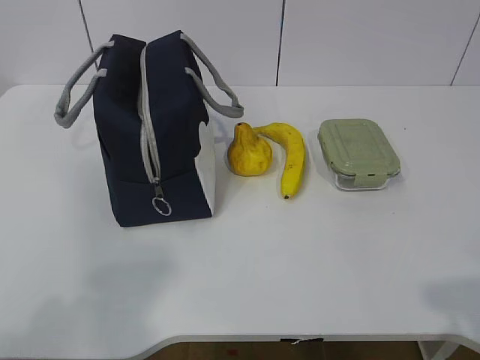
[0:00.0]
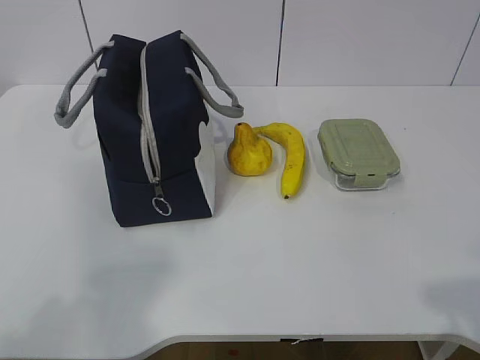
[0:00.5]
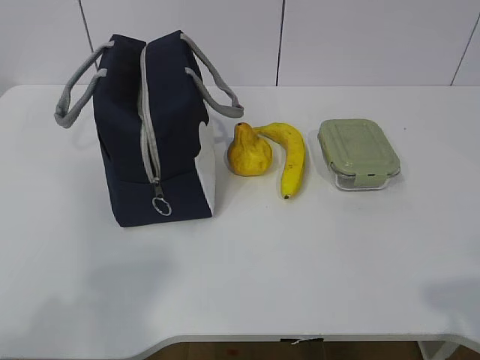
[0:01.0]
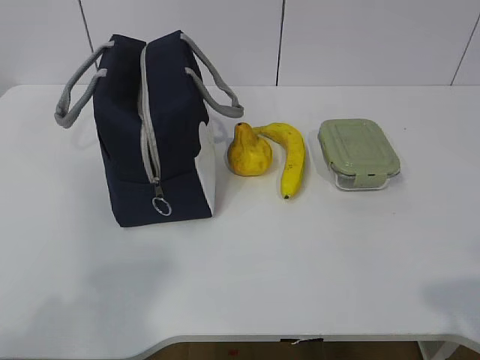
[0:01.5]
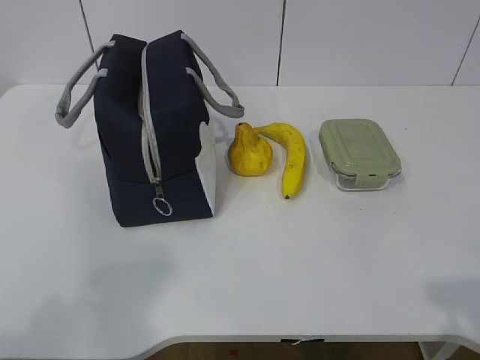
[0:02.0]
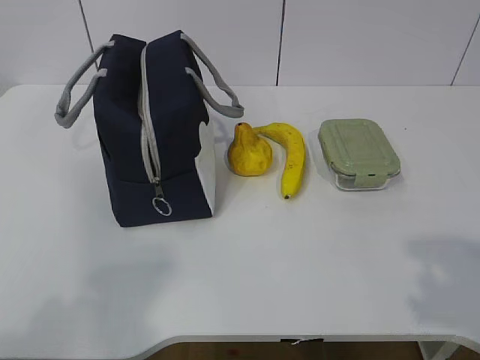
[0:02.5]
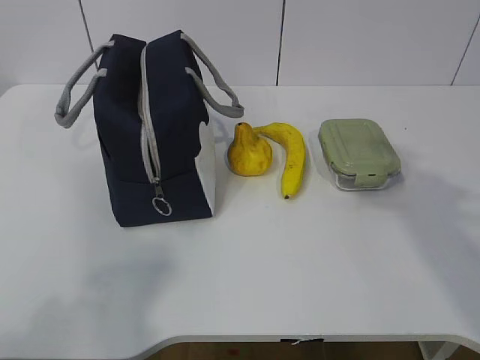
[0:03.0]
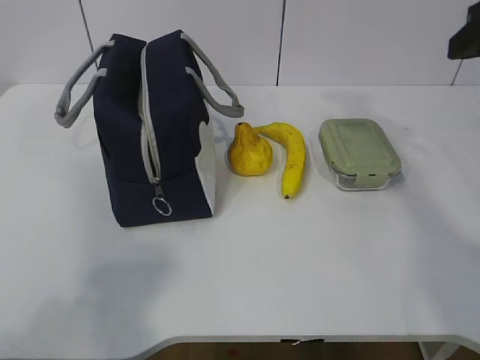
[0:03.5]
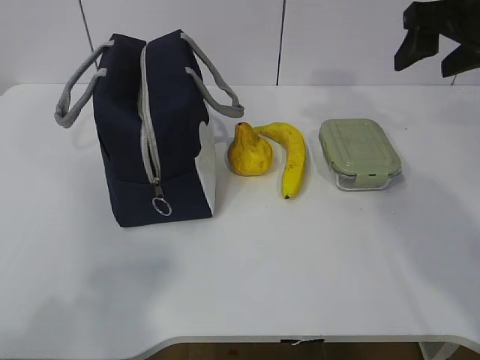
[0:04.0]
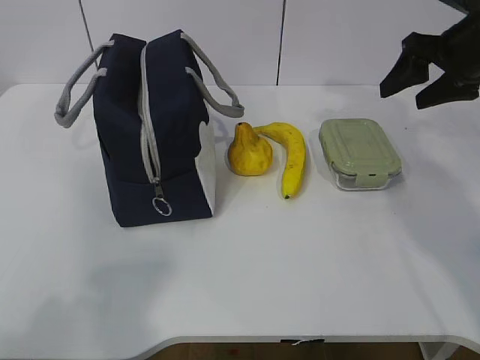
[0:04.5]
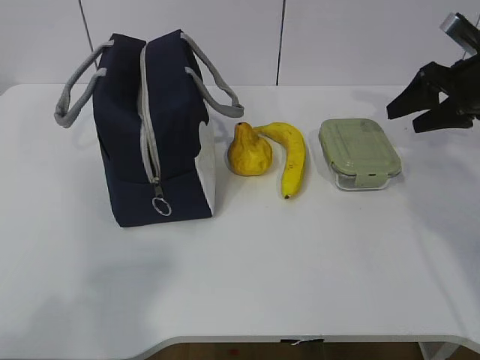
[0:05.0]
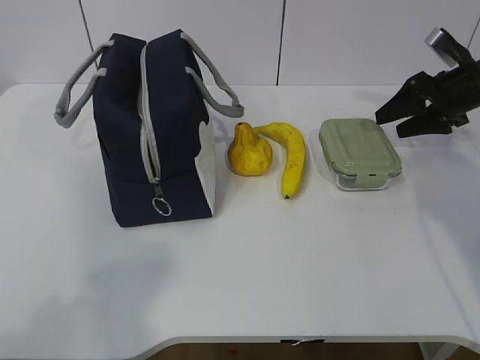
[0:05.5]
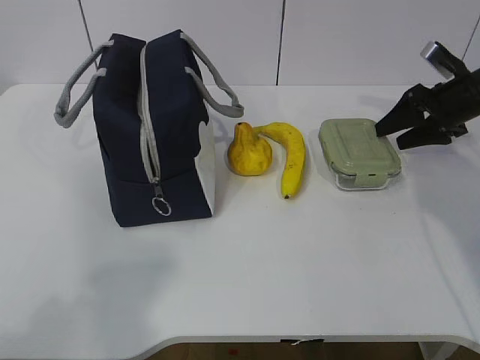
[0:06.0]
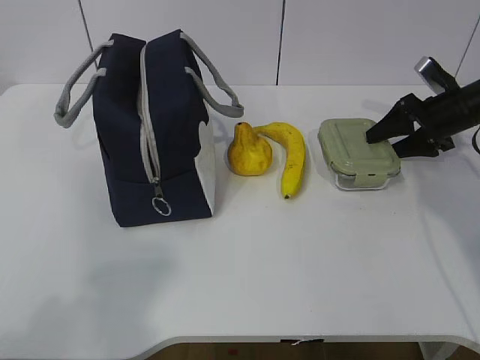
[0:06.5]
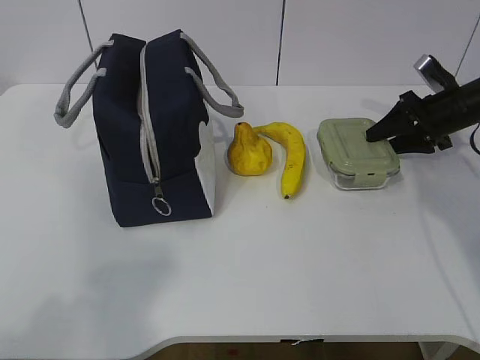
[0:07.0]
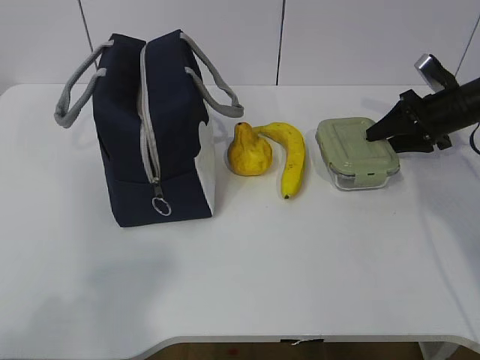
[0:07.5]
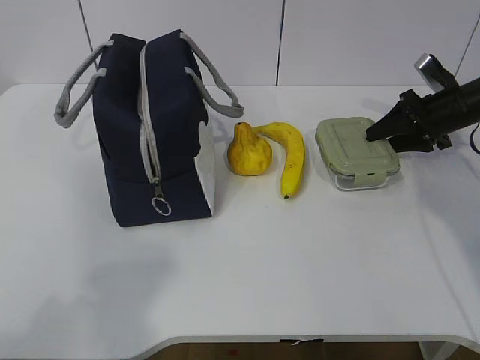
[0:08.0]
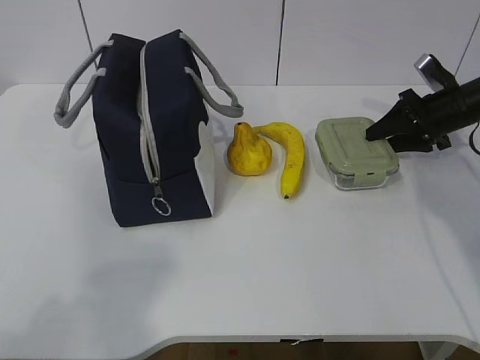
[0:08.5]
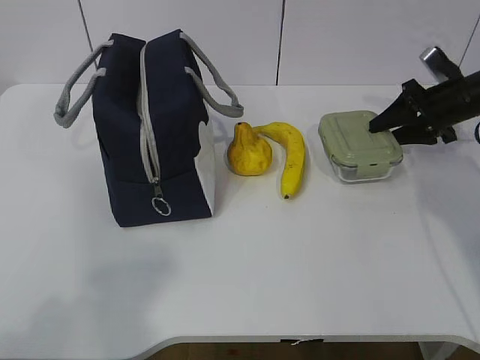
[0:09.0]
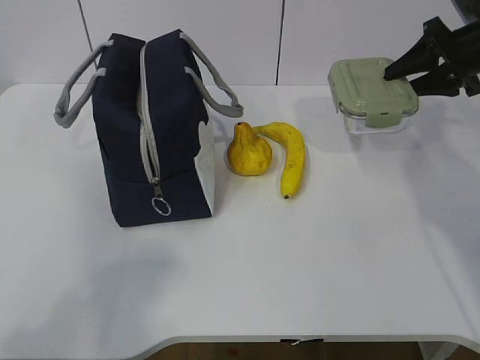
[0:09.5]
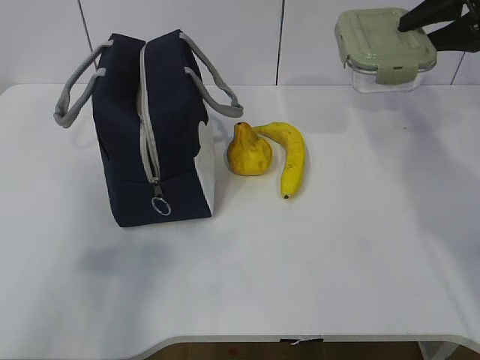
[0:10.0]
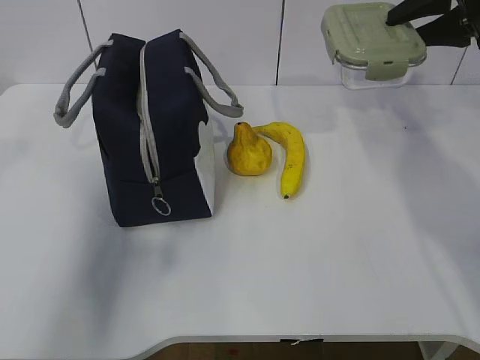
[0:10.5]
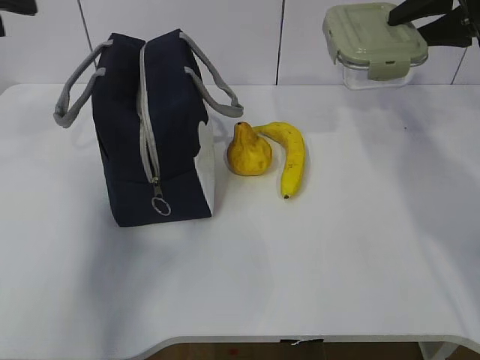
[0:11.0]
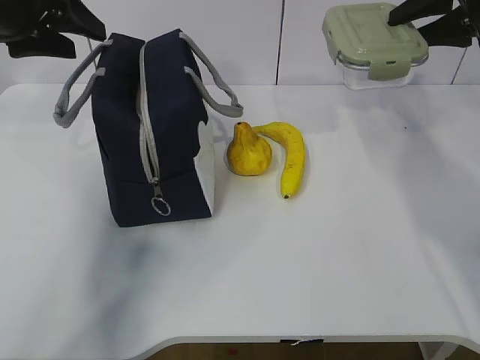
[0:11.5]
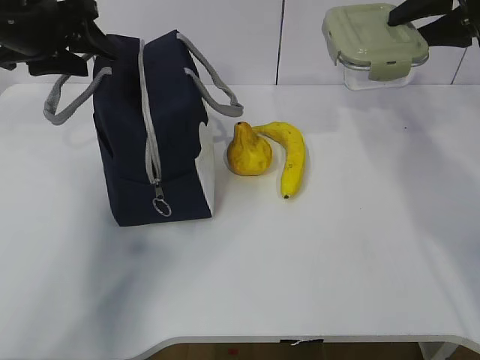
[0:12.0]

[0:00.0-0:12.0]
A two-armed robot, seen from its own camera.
Step, 0:00.0 to 0:07.0: Grab the lunch box with your right hand.
0:02.0 to 0:04.0: The right gripper is displaced forward by some 40 cm.
0:04.0 to 0:06.0: The right gripper is displaced downward, forward and to the right by approximately 20 cm.
0:06.0 to 0:08.0: The grippers stay close to where they were, moving slightly.
0:08.0 to 0:10.0: The right gripper goes roughly 15 cm upward, while the left gripper travels forward by some 5 cm.
0:10.0 to 0:12.0: The left gripper shifts some 35 cm forward, and opens.

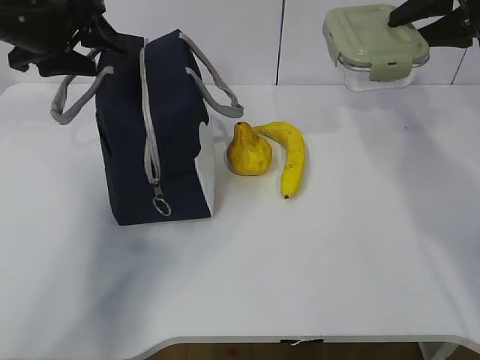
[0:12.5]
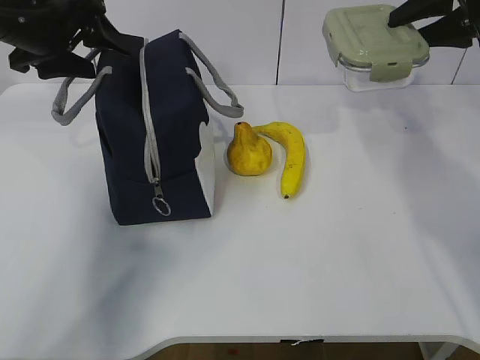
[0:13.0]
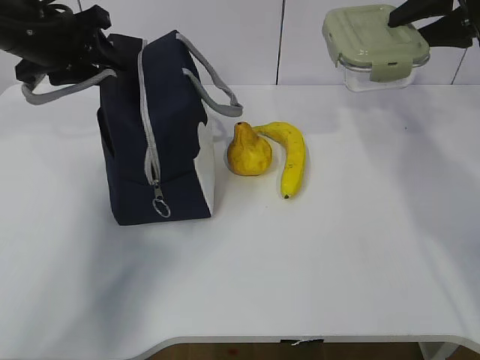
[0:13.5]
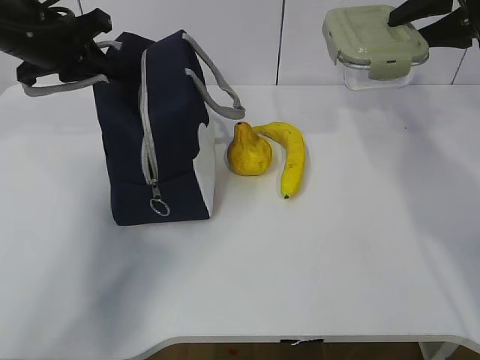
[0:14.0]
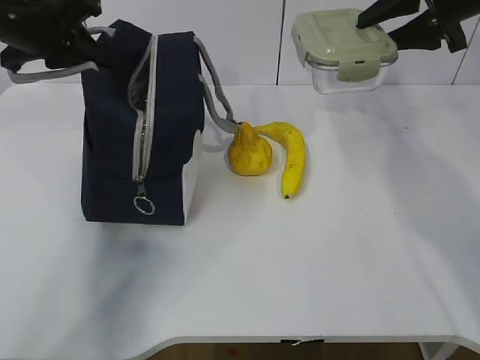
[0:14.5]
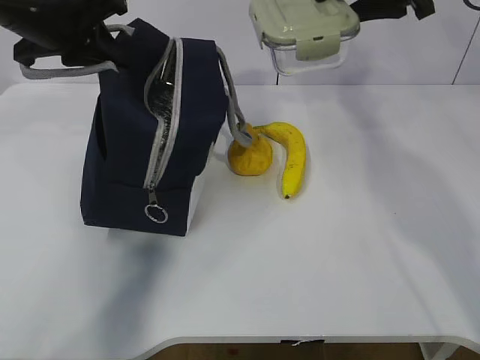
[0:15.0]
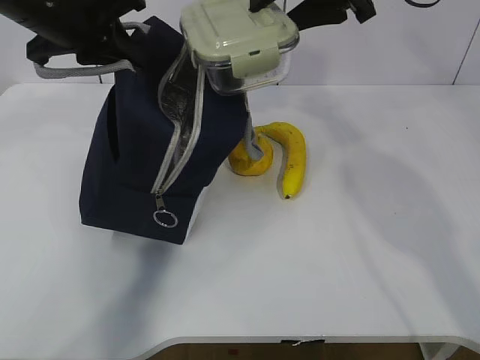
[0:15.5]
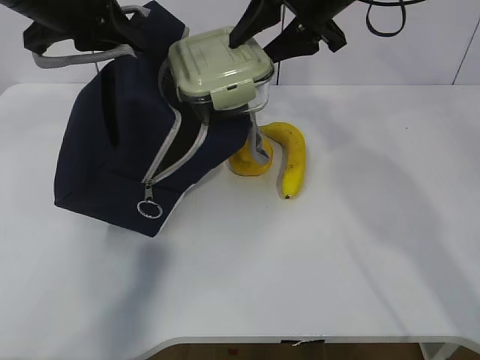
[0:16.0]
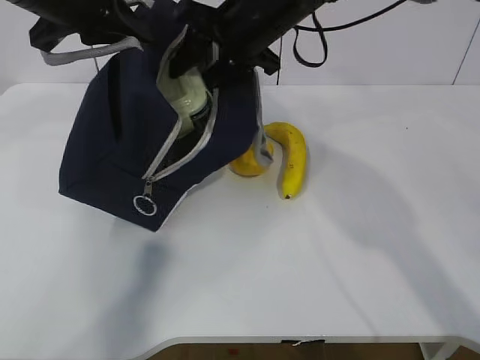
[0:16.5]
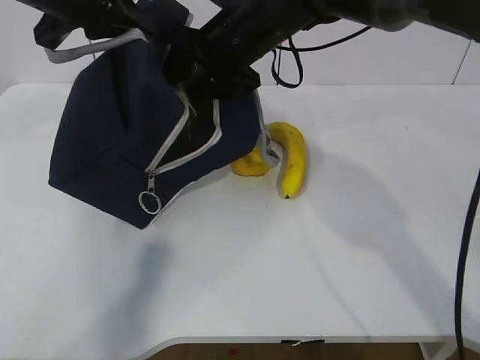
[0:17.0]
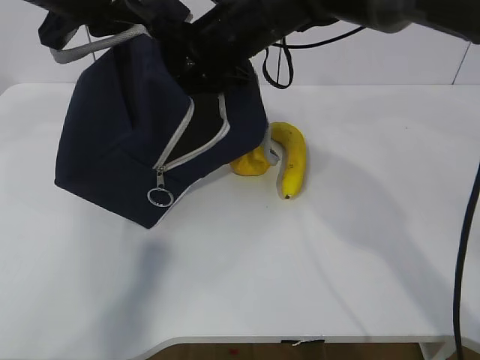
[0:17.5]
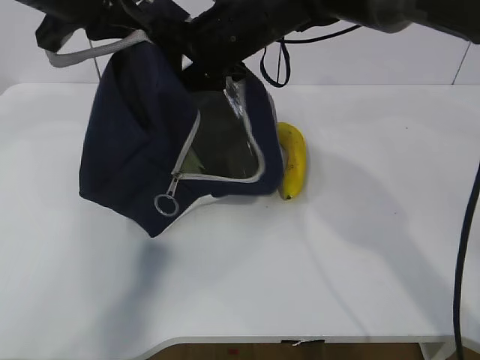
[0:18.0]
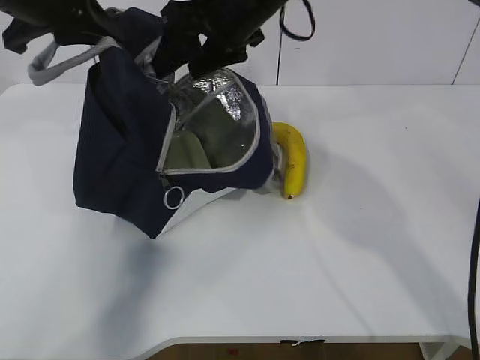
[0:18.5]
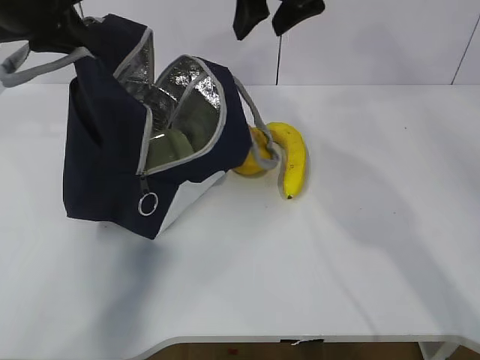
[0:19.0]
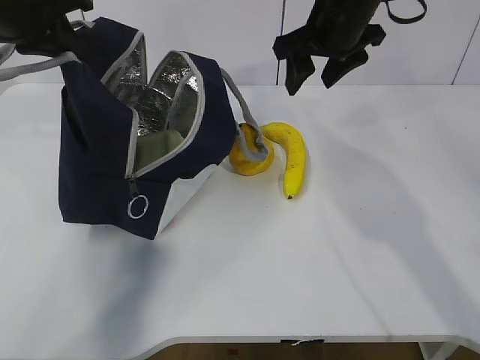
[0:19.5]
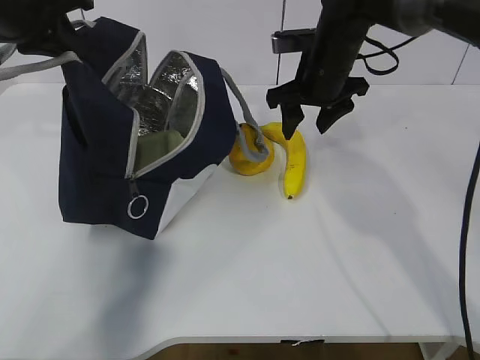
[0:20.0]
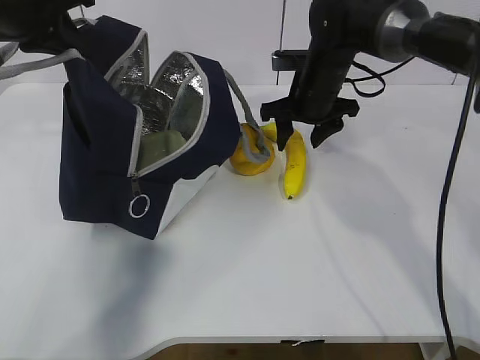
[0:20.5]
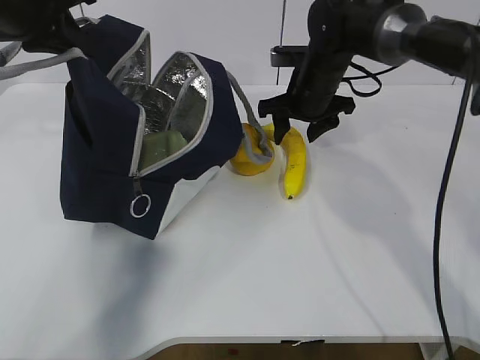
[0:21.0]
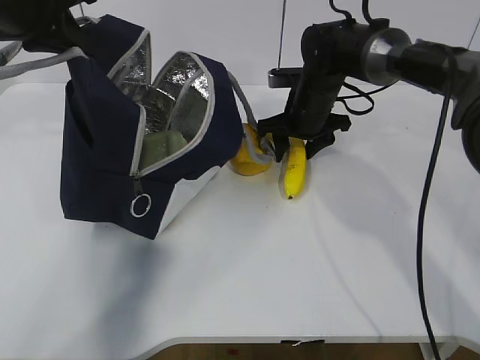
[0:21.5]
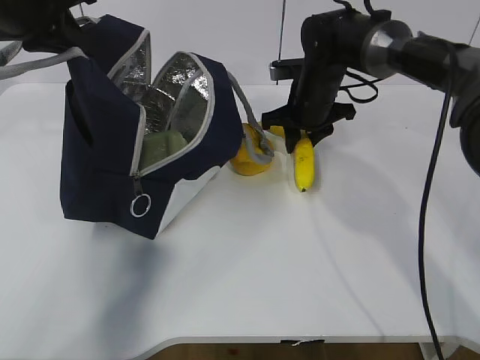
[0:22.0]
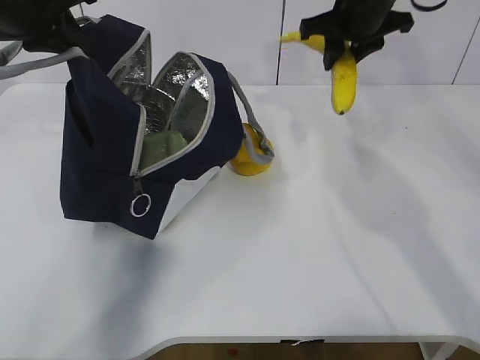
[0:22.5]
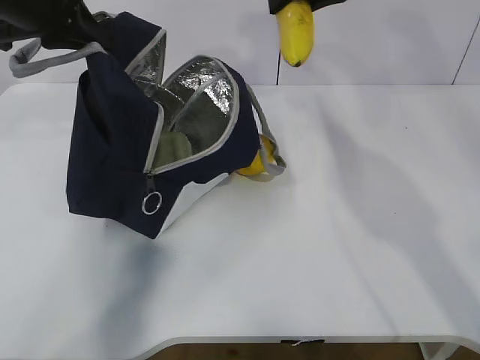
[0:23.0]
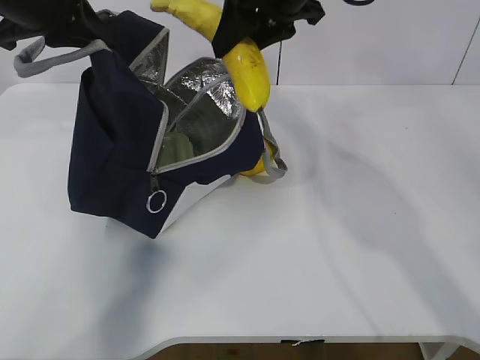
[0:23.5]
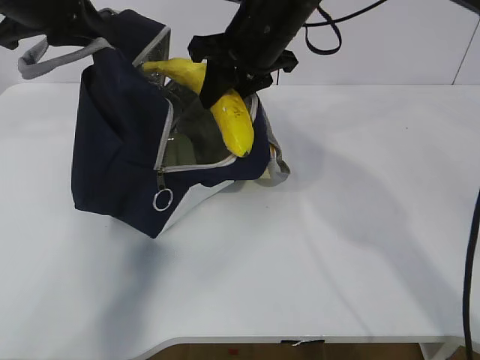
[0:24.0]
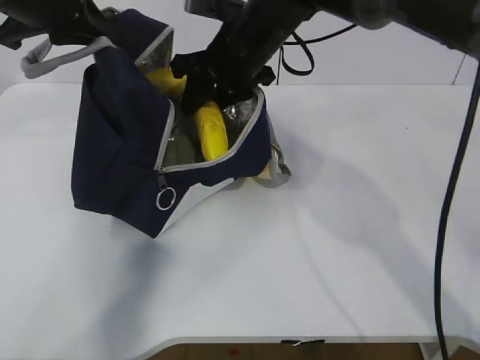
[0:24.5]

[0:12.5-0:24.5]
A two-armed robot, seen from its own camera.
Step, 0:13.5 to 0:15.0: Place it into the bag with your right hand.
Step, 0:15.5 to 0:18.0: Grab the banana with your right hand.
Step, 0:18.5 to 0:20.5: Place it into the bag with your right hand.
Step, 0:21.0 to 0:23.5: Grab the pear with your right hand.
0:12.5 to 0:14.5: The left gripper closes up.
0:14.5 to 0:16.5: The left gripper goes some 5 cm to the right. The right gripper heads to the left, covering approximately 25 cm.
0:18.5 to 0:20.5: The right gripper shifts approximately 15 cm downward, to the right and forward.
0:20.5 to 0:22.5: The right gripper shifts roughly 10 cm upward, and closes.
0:22.5 to 0:24.5: The right gripper goes roughly 15 cm to the left.

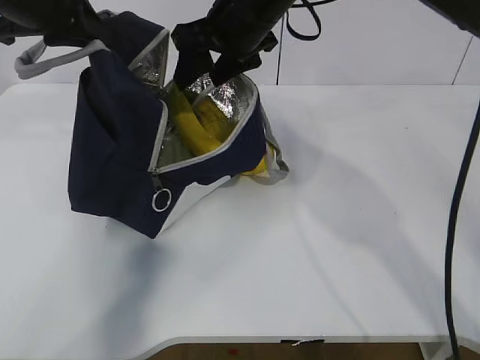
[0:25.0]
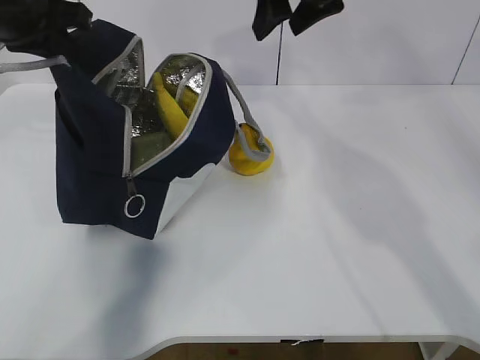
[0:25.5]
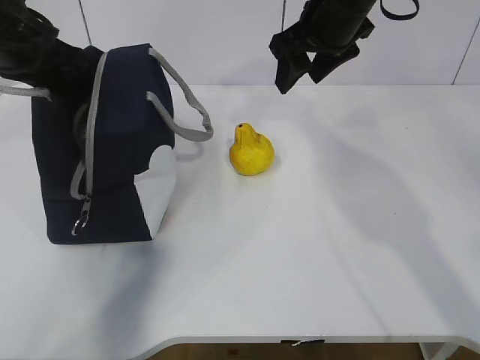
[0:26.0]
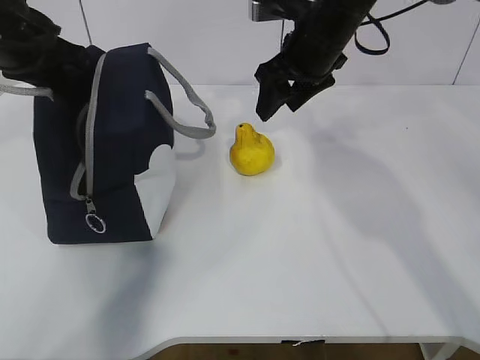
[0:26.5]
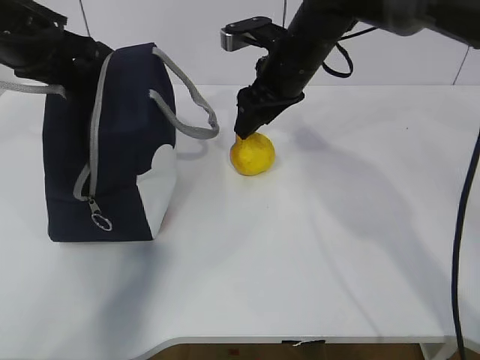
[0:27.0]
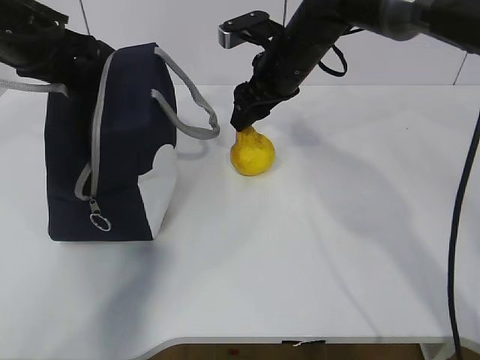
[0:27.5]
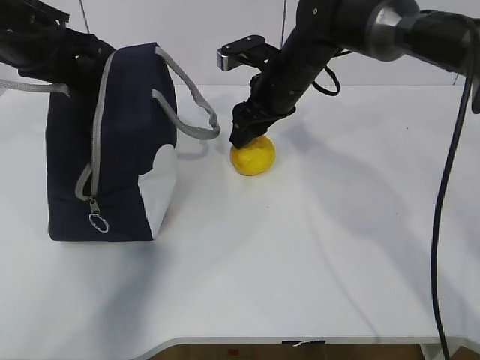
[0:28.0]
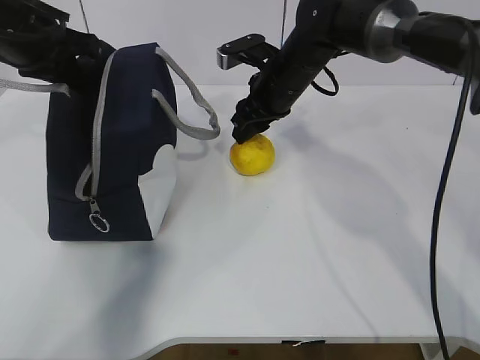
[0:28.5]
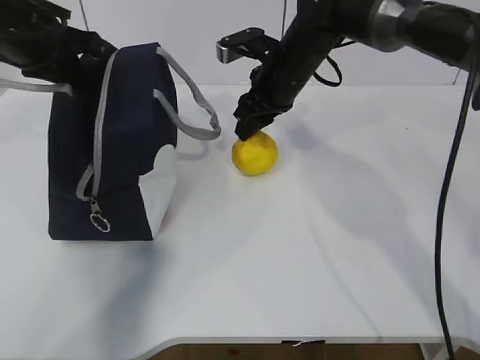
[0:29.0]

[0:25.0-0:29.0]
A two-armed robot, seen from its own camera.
Step, 0:25.0 to 0:26.0: Secure the lunch bag with your left hand.
Step, 0:26.5 to 0:27.0: Grab the lunch bag with your right hand.
0:25.0 to 0:27.0: The right gripper travels downward and to the right by roughly 10 cm.
0:27.0 to 0:29.0: The right gripper closes its fingers.
